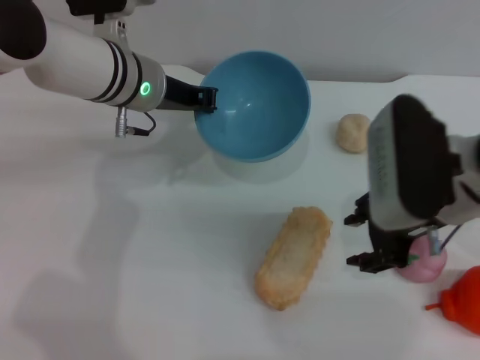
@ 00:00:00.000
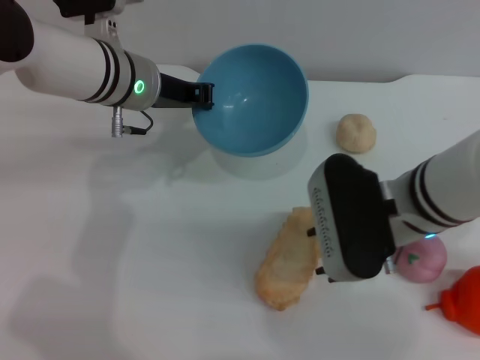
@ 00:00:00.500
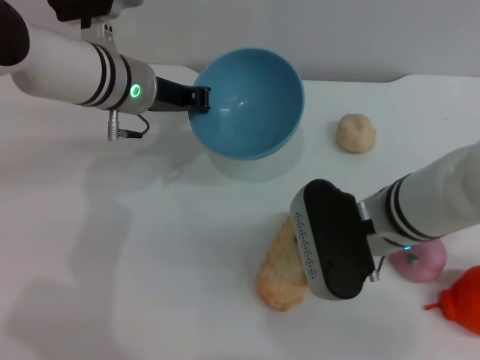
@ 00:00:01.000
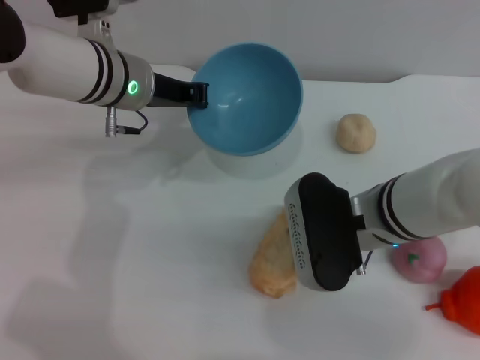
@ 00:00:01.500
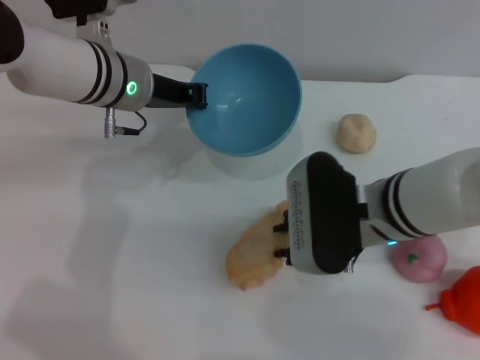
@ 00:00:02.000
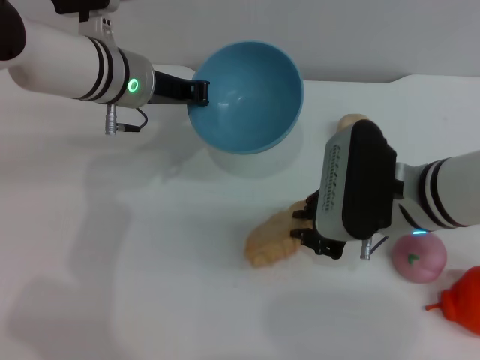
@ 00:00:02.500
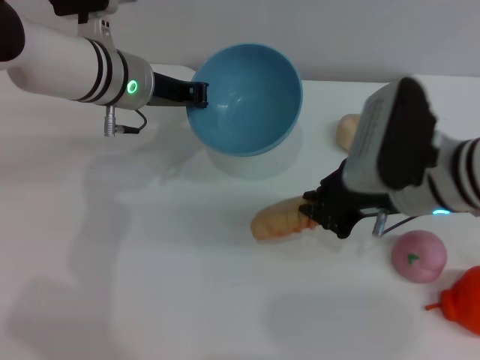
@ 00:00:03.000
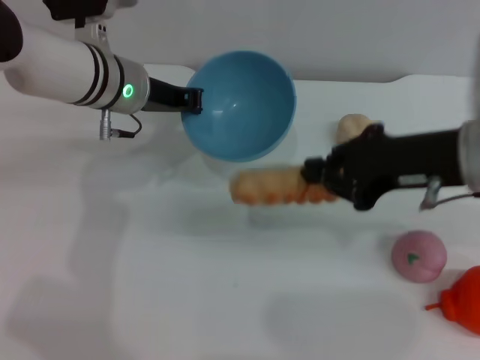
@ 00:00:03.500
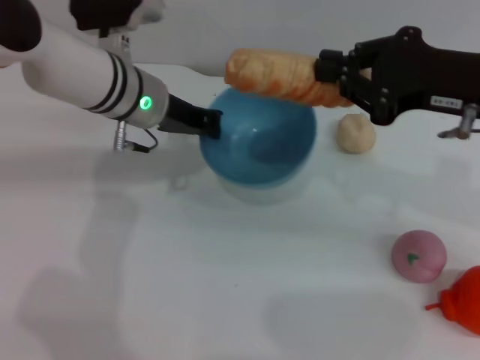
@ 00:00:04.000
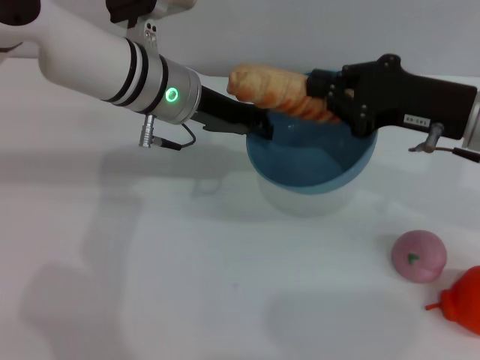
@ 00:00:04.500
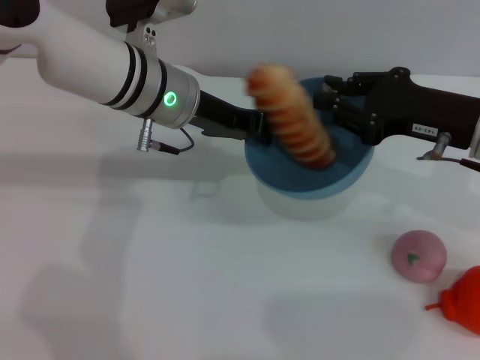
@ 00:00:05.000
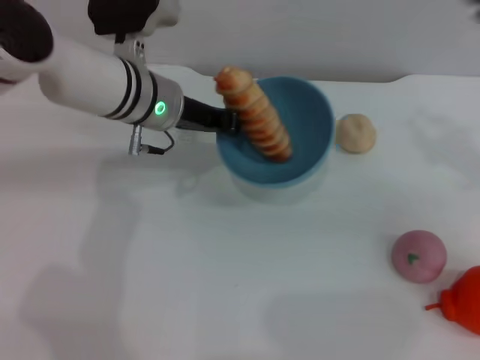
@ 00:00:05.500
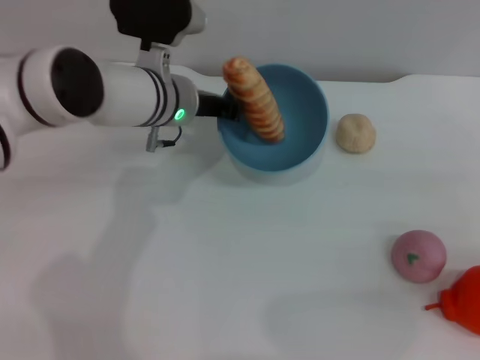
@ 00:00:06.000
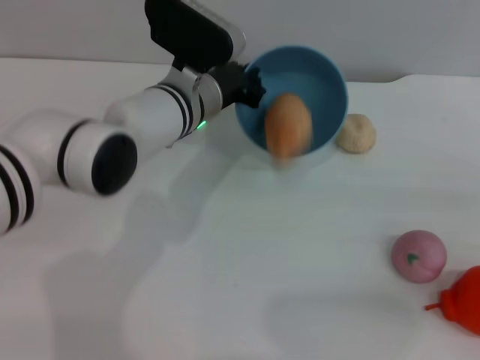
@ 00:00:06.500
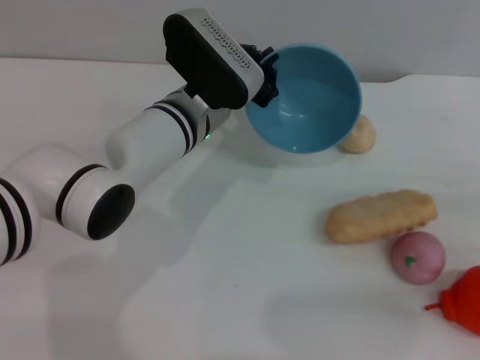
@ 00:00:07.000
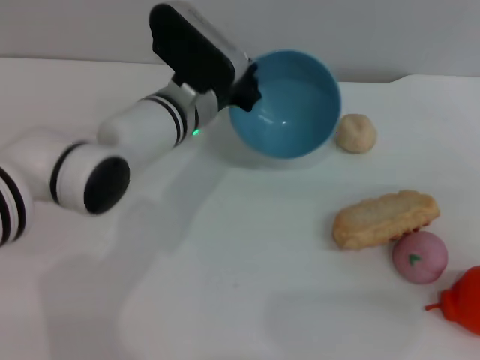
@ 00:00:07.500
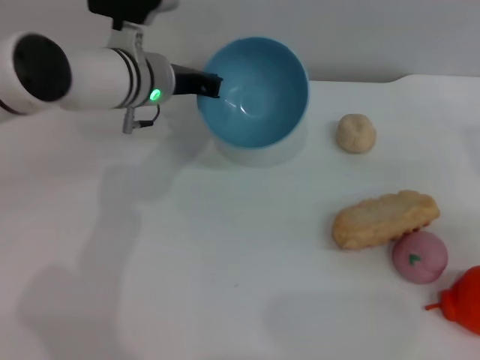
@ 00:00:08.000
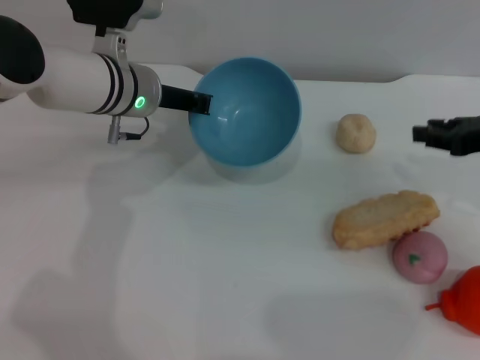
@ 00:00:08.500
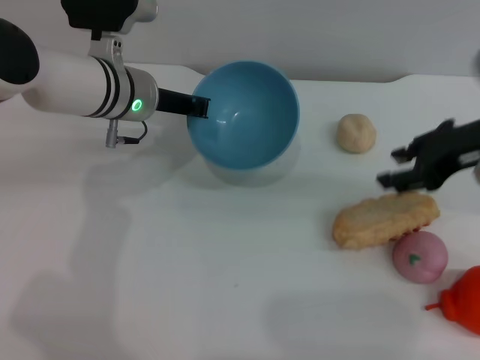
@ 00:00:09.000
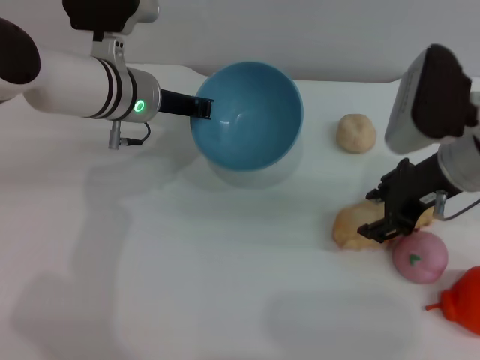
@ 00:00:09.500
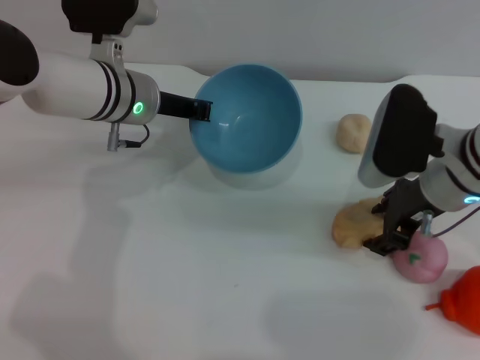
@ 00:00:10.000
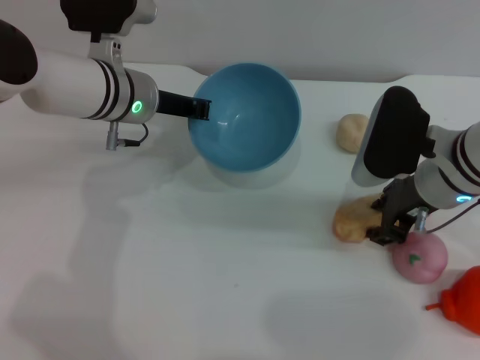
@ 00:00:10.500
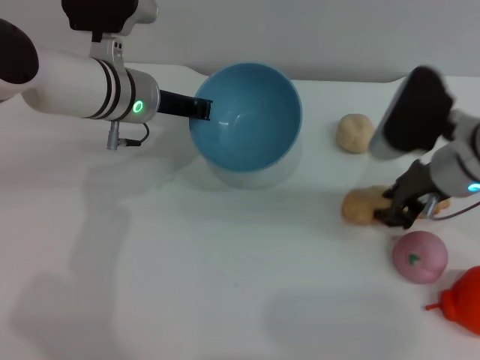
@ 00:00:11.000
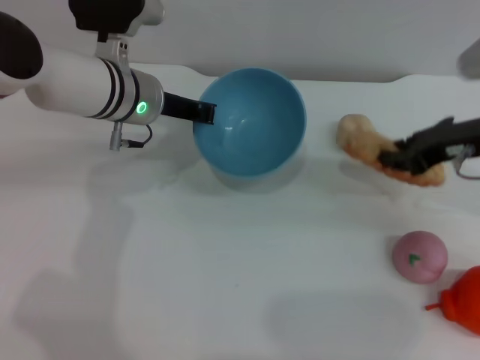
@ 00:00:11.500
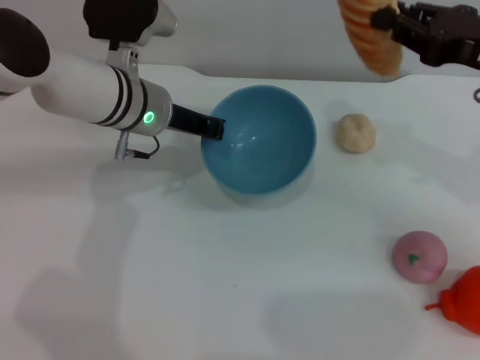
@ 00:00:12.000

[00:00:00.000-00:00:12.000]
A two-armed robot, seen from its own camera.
Task of the whole recording: put the bread into the blue bowl and pour it out repeatedly.
Step, 00:00:00.000 to 00:00:03.500: Pick up the bread with the right gripper.
Step, 00:00:04.000 to 00:00:05.000: Place the bread into the bowl.
Step, 00:00:05.500 to 00:00:07.000: Pour the bread out of the bowl.
Step, 00:00:07.500 to 00:00:11.000: Pick up the bread with the right gripper.
00:00:00.000 to 00:00:02.000: The right gripper goes about 10 cm to the left and downward.
00:00:02.000 to 00:00:04.000: The right gripper is displaced to the right and upward by roughly 15 cm, and closes its fingers.
00:00:04.000 to 00:00:06.000: The right gripper is displaced to the right, downward and backward by roughly 20 cm, and opens up.
00:00:08.000 to 00:00:10.000: The right gripper goes roughly 15 cm to the left, and opens its fingers.
00:00:10.000 to 00:00:12.000: The right gripper shifts some 10 cm to the right and upward, and closes.

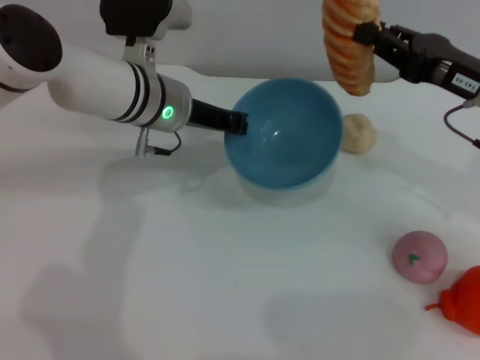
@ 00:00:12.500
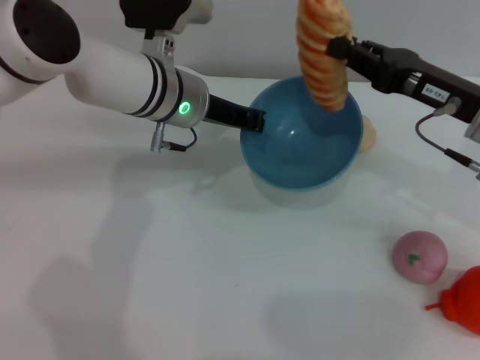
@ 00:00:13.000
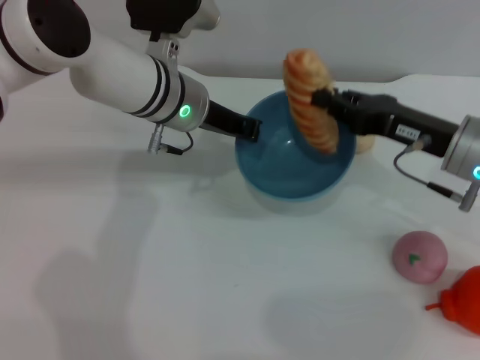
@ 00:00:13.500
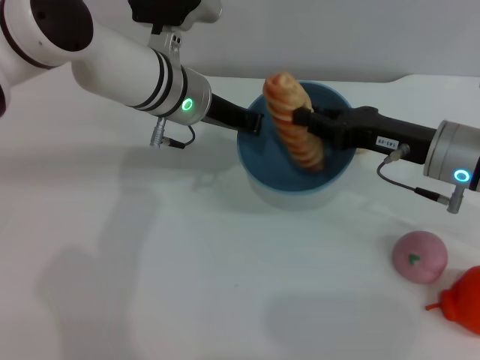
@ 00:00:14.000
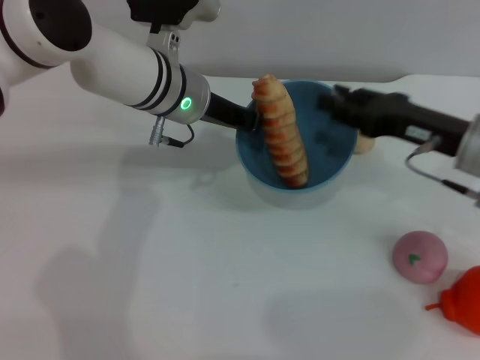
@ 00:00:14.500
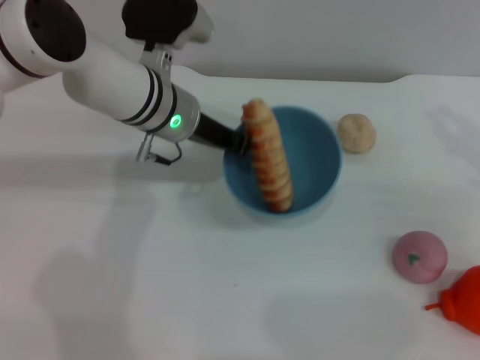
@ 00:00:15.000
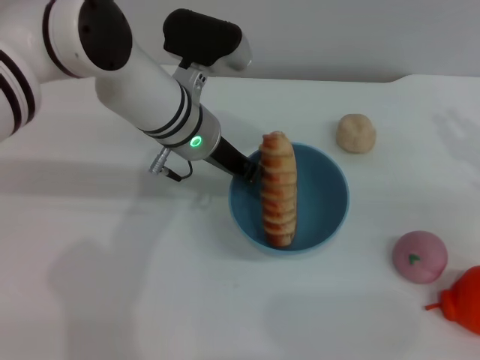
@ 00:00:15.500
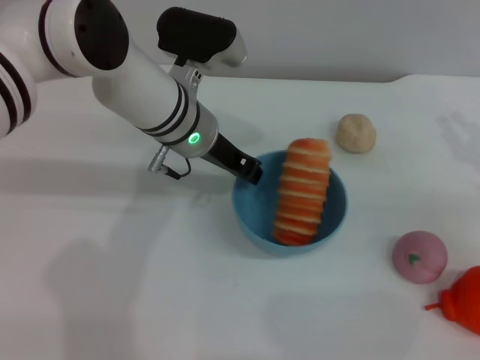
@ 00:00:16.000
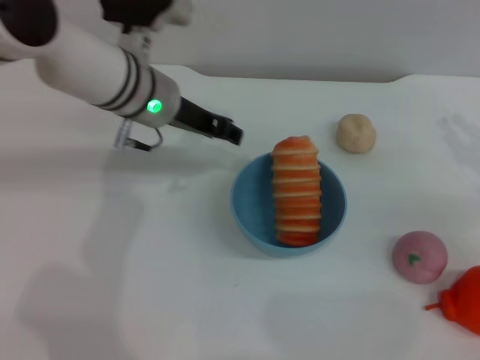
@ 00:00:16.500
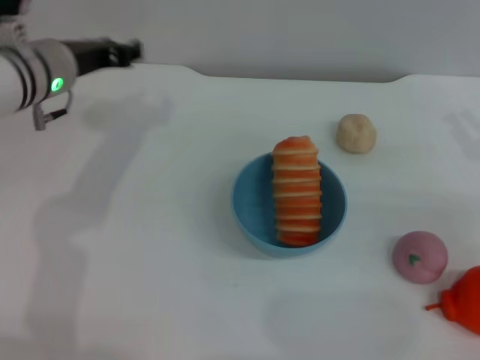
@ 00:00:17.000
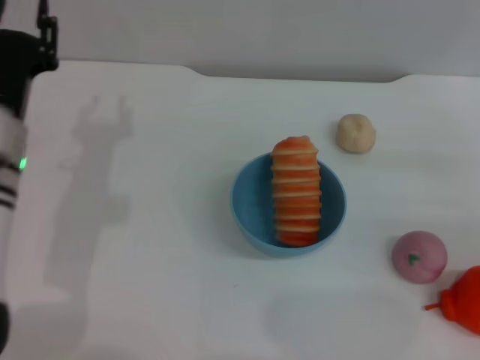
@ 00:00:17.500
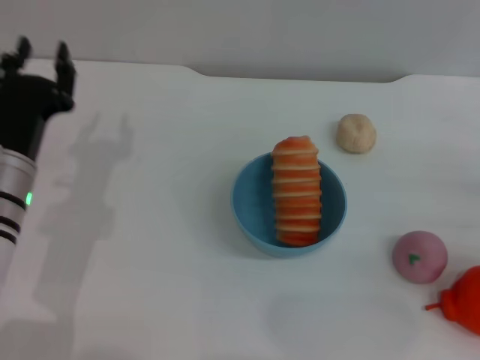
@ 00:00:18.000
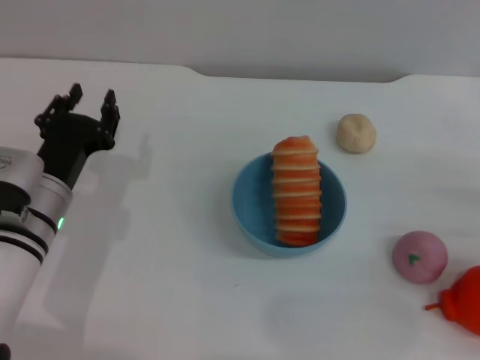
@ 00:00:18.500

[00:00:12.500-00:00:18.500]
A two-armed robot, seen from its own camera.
Task of the whole recording: put the bread into the blue bowl and pour it out repeatedly.
Step, 00:00:12.500 to 00:00:14.500: Place the bread into the bowl.
Step, 00:00:15.000 to 00:00:16.500: Place the bowl on the table.
00:00:12.500 to 00:00:14.500: The right gripper opens its fingers.
00:00:14.500 to 00:00:16.500: The left gripper opens. Meanwhile the right gripper moves to the right, some 10 cm.
00:00:16.500 to 00:00:18.500: The left gripper is displaced backward, downward and to the left by roughly 20 cm. Meanwhile the right gripper moves downward and backward, about 10 cm.
